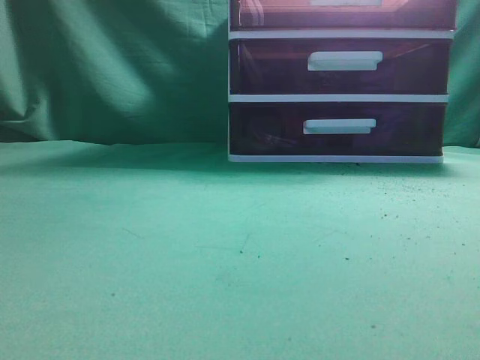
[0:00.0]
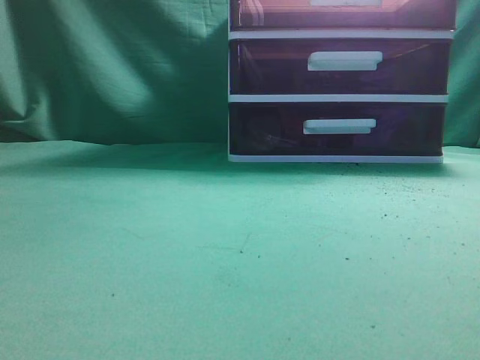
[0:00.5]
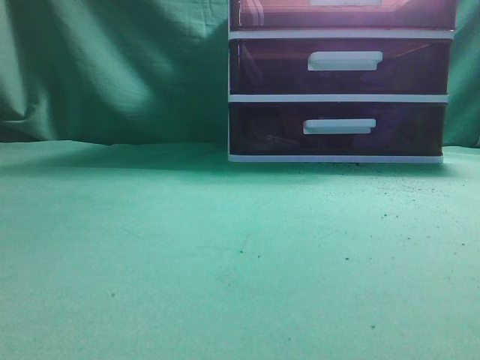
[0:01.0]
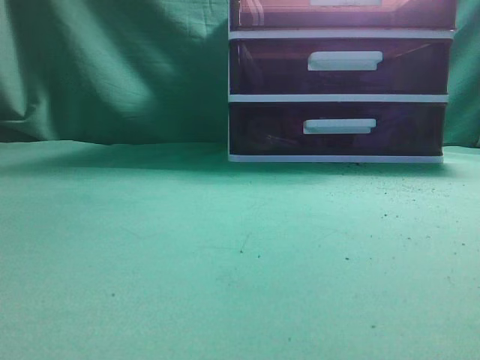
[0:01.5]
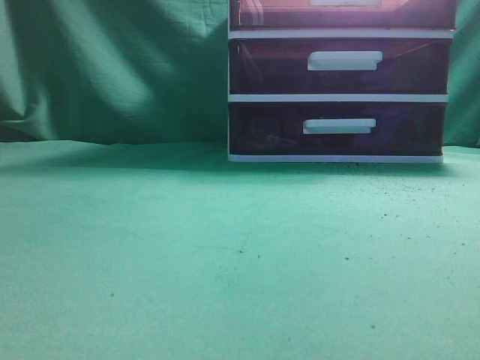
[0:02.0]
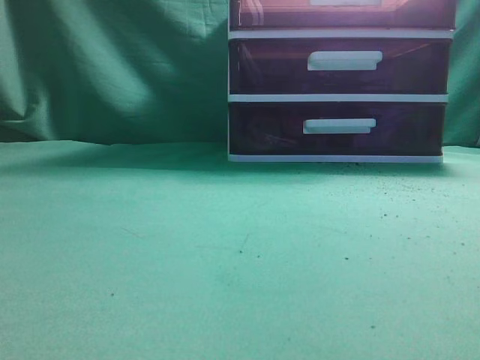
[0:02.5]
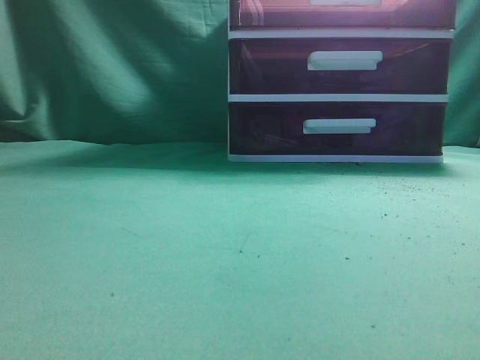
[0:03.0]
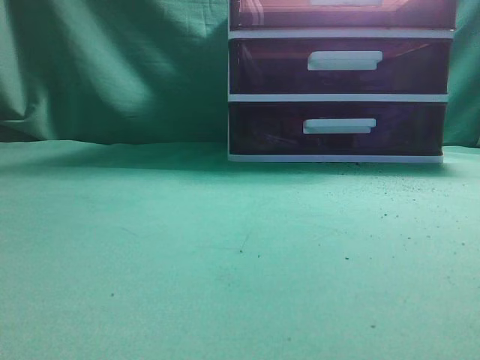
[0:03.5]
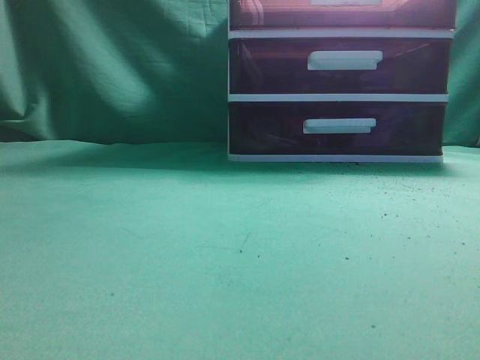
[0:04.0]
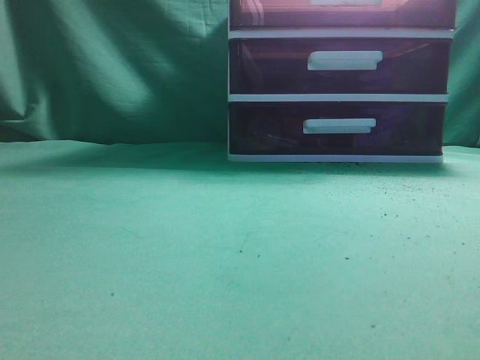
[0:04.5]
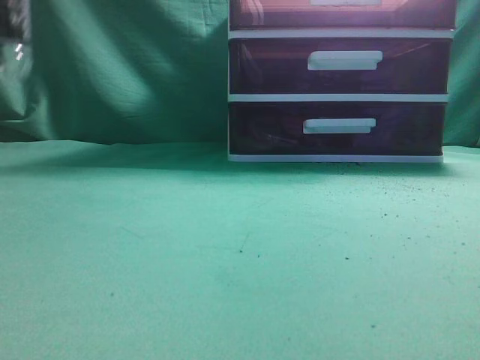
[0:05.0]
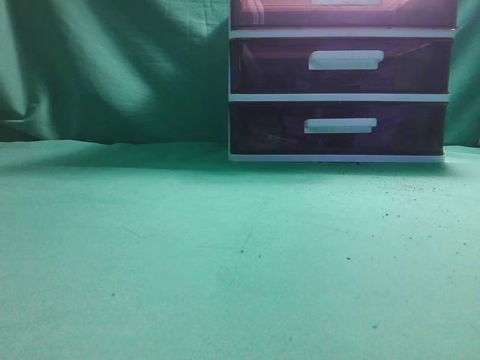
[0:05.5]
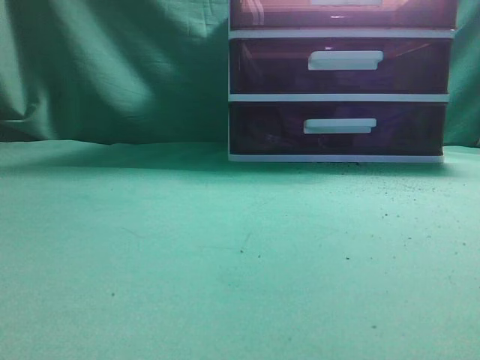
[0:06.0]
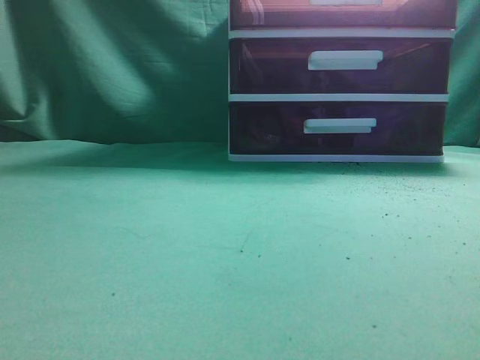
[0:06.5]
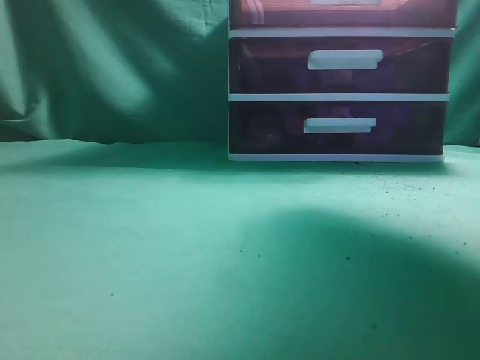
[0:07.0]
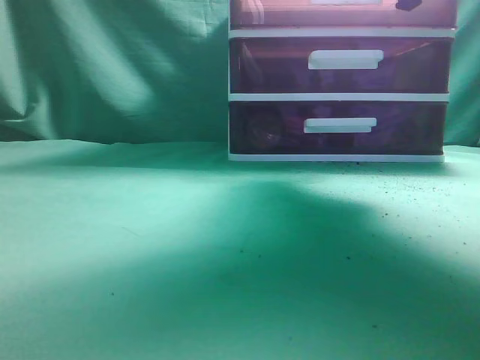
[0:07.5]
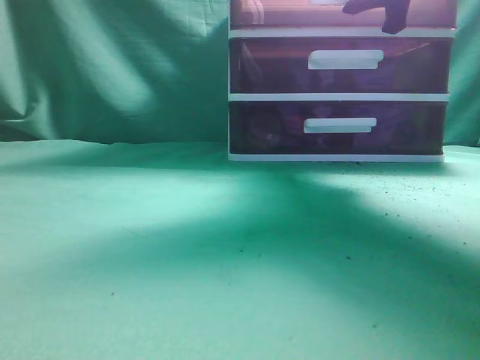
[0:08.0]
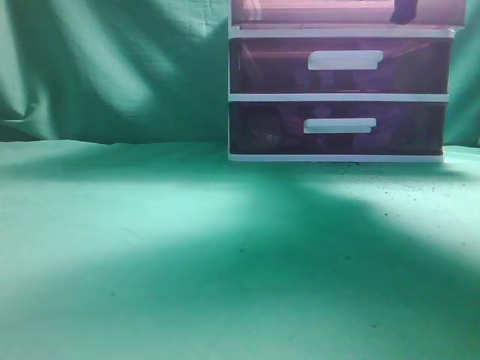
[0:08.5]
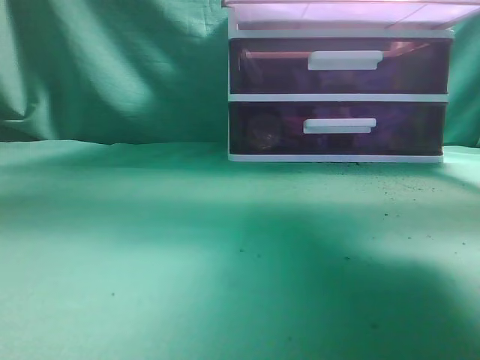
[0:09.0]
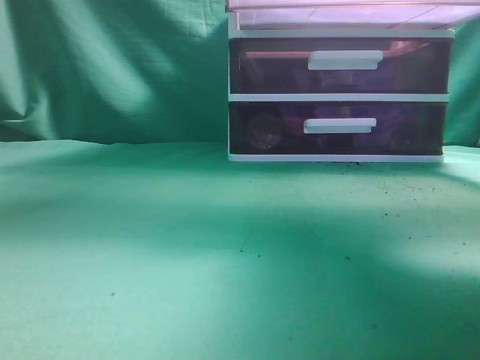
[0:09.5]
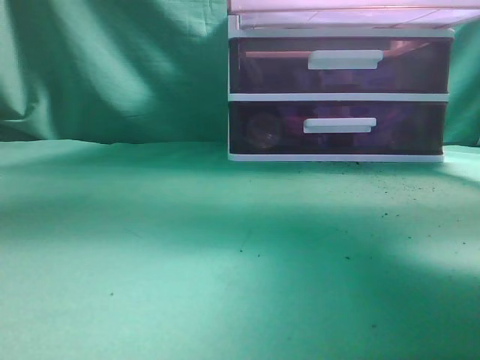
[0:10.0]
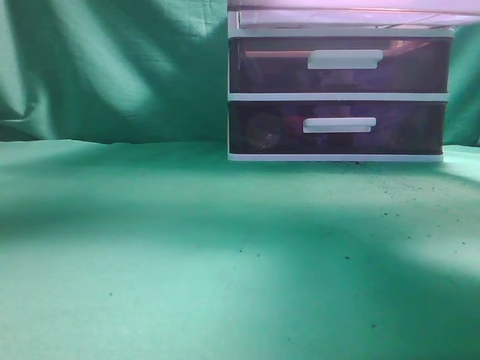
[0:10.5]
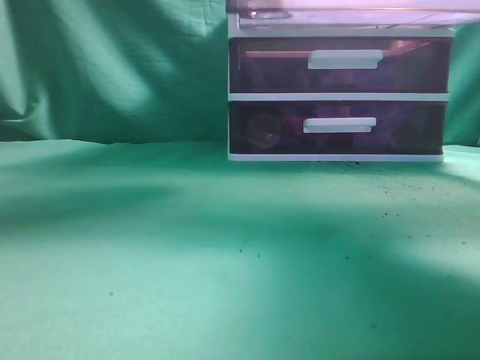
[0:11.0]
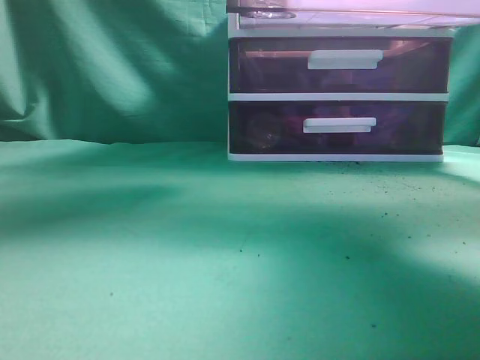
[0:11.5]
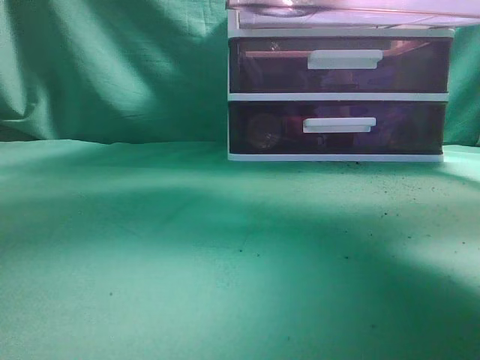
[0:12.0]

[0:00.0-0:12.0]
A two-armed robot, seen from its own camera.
Task of the whole recording: place the water bottle into the drawer.
Step, 0:00.0 to 0:09.5: Open the drawer.
0:06.0 to 0:08.0: The right gripper is displaced forward by approximately 35 cm, and opens up.
0:08.0 to 0:10.0: The right gripper heads backward, covering roughly 15 cm. Meanwhile the left gripper is displaced upward, forward and to the right by about 20 cm.
0:10.0 to 0:12.0: The left gripper goes some 25 cm to the right, downward and forward, and opens.

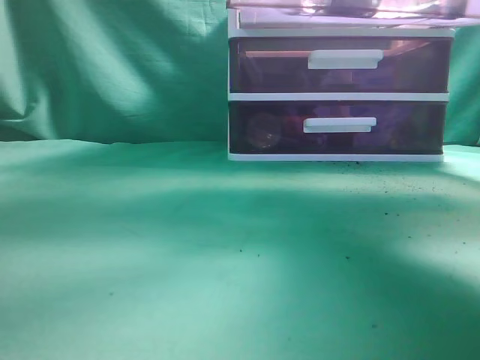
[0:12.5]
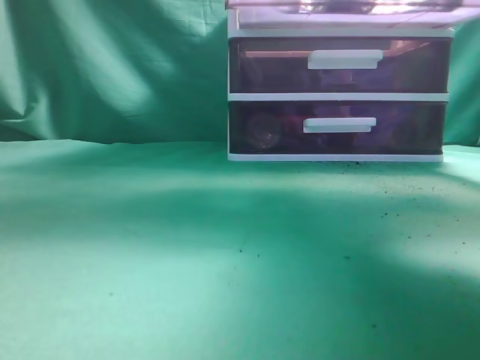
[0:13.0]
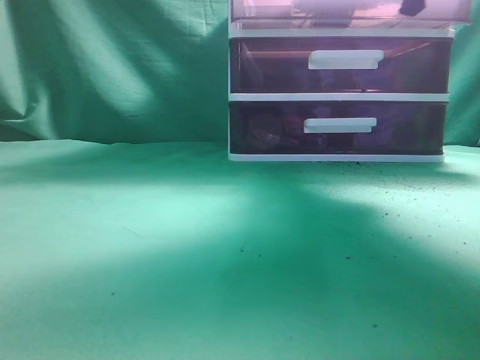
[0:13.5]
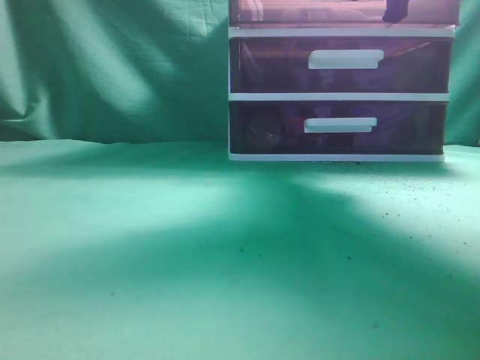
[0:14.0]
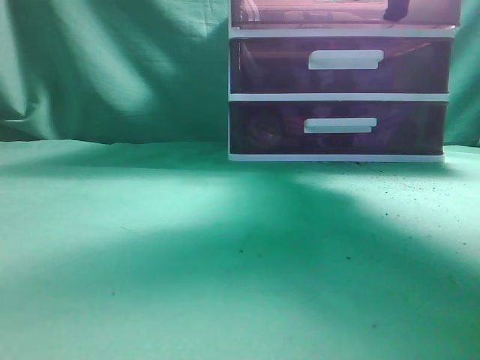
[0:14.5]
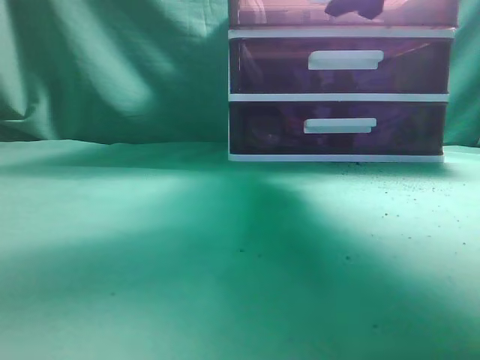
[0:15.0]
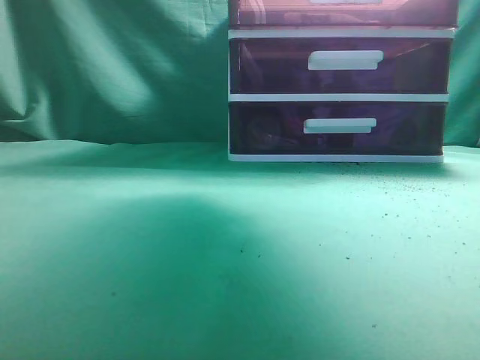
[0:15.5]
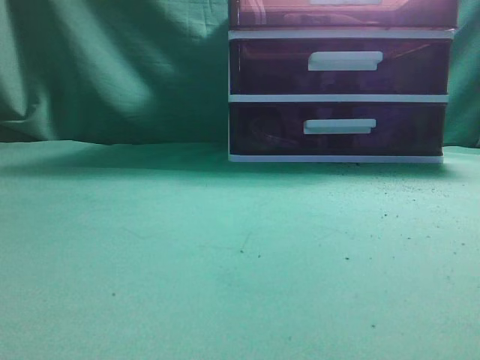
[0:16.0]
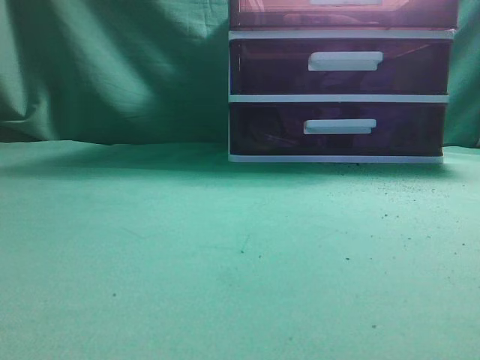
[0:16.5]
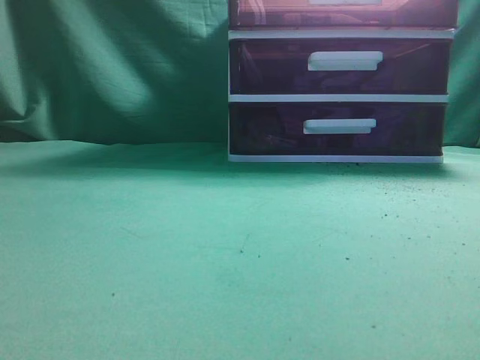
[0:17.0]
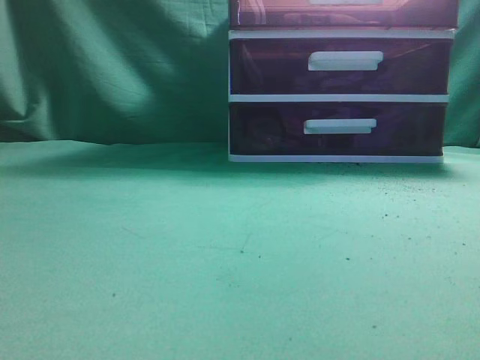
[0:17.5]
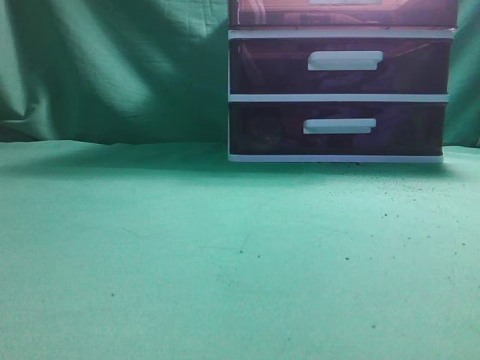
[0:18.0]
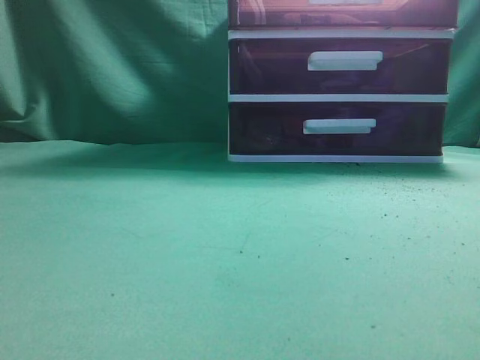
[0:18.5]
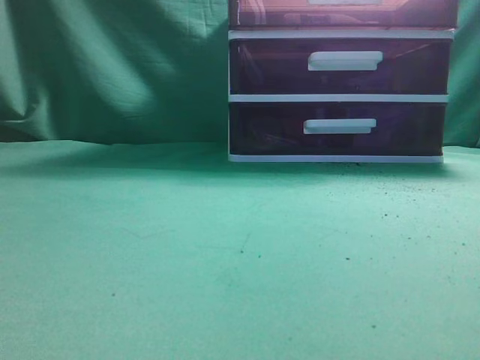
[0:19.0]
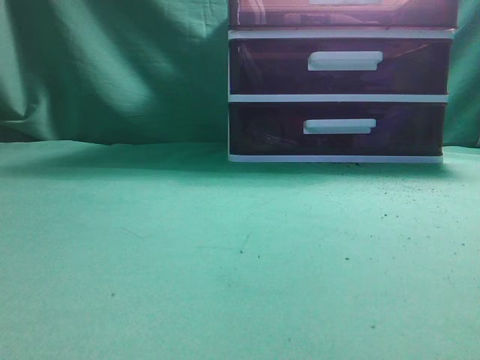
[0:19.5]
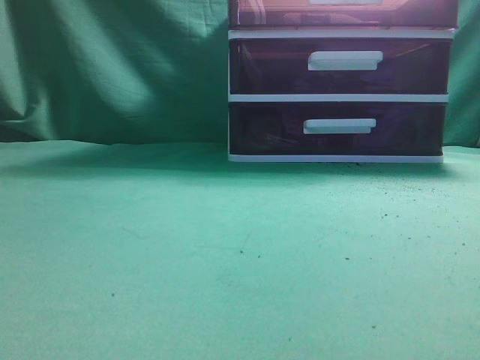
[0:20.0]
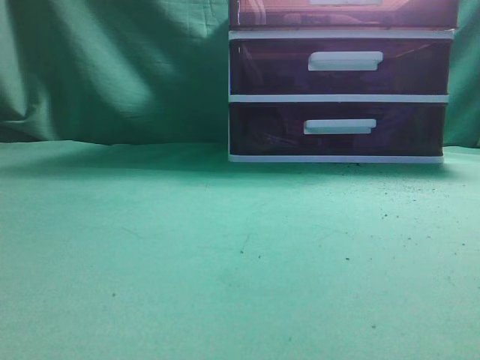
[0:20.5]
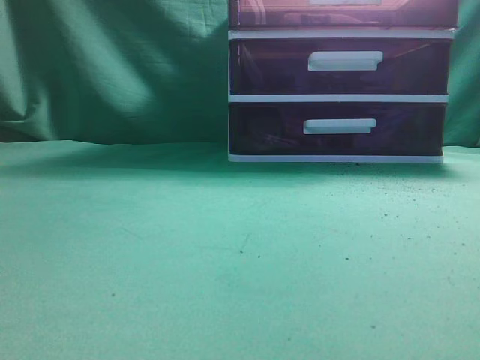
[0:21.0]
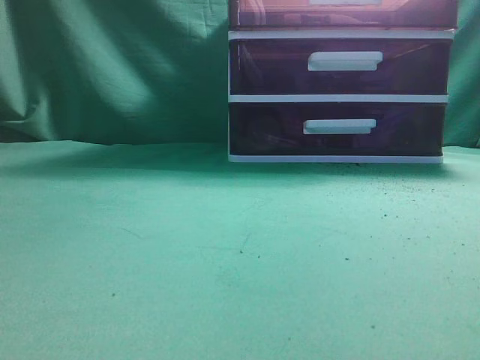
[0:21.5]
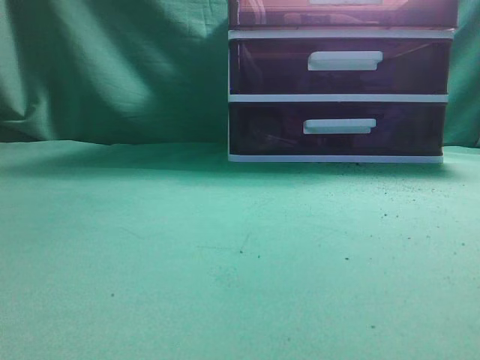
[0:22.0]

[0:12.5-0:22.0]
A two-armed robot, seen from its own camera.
Task of the whole recording: place the water bottle into the drawer.
Step, 0:12.5 to 0:15.0: Close the drawer.
0:12.5 to 0:14.5: The right gripper goes about 15 cm forward; the left gripper moves backward and to the left, approximately 35 cm, and closes its fingers.
0:14.5 to 0:16.5: The right gripper goes roughly 30 cm backward and upward, and opens and closes again; the left gripper goes roughly 15 cm backward, downward and to the left.
